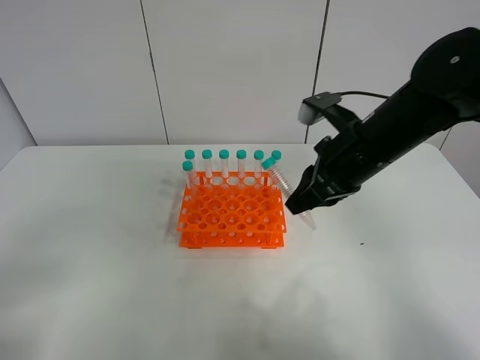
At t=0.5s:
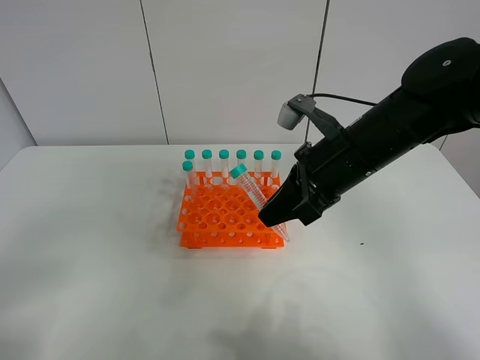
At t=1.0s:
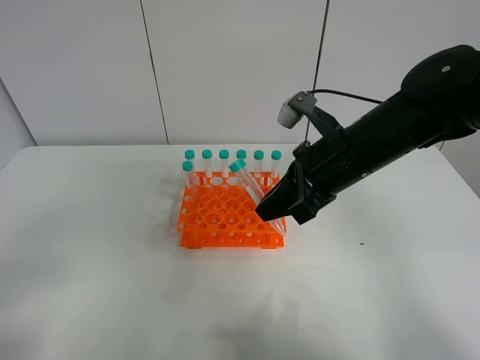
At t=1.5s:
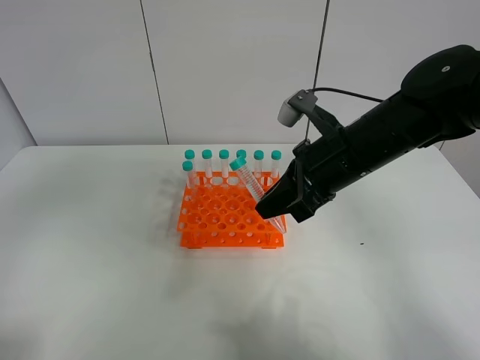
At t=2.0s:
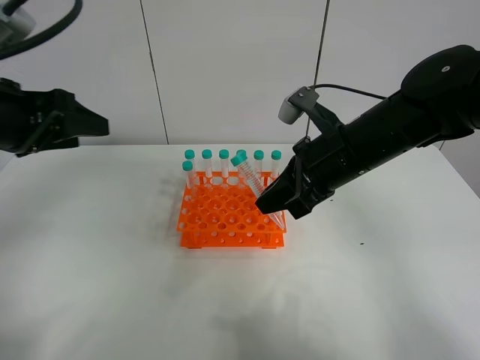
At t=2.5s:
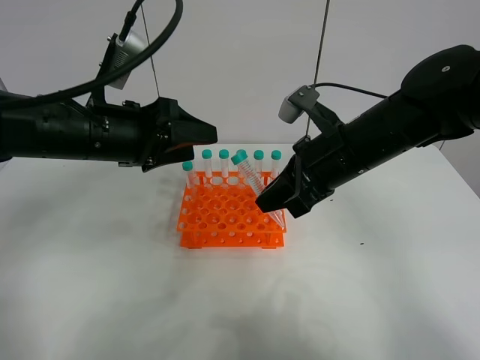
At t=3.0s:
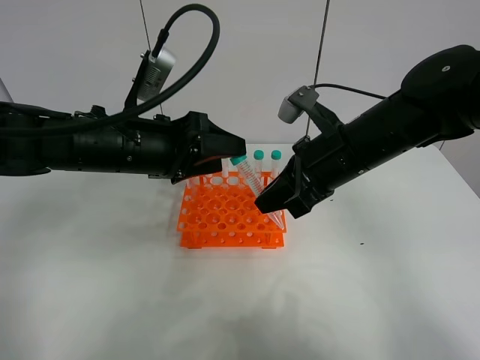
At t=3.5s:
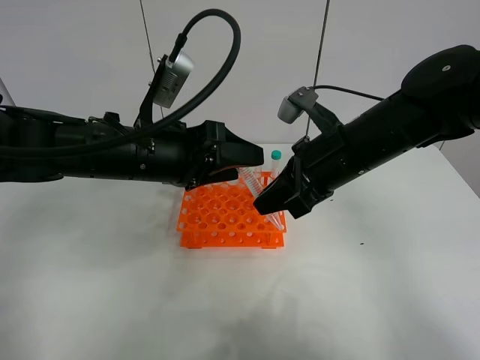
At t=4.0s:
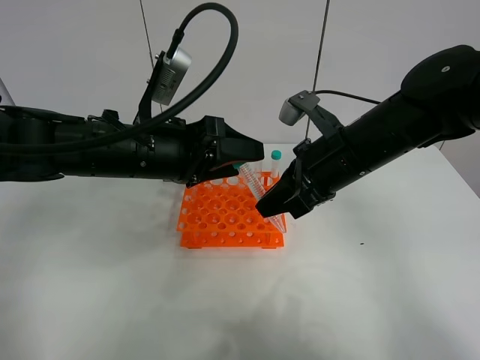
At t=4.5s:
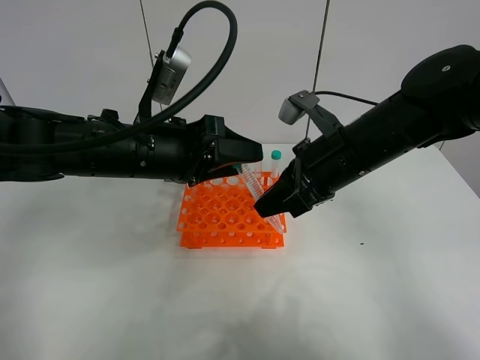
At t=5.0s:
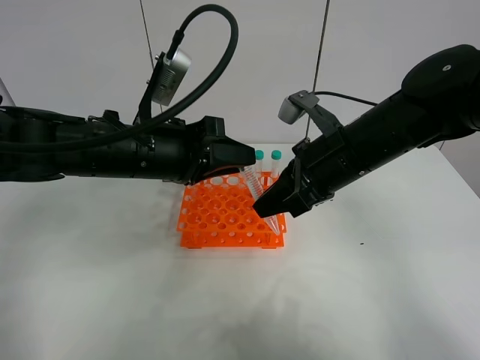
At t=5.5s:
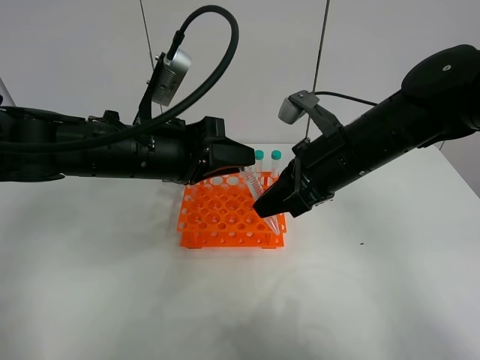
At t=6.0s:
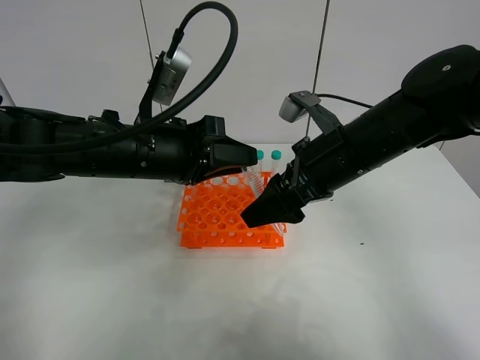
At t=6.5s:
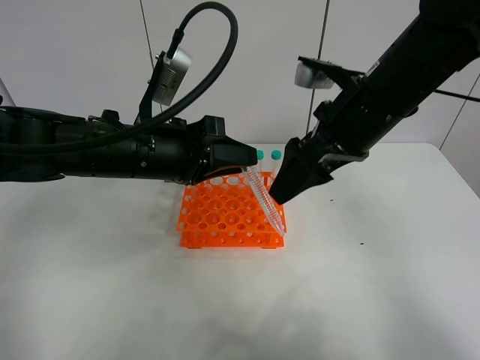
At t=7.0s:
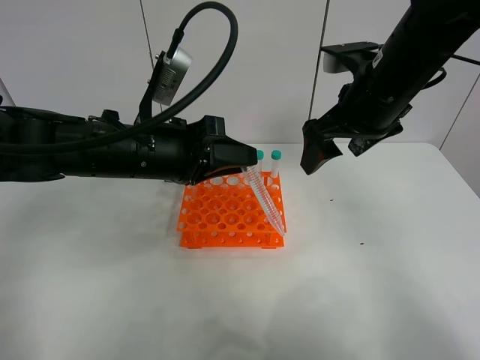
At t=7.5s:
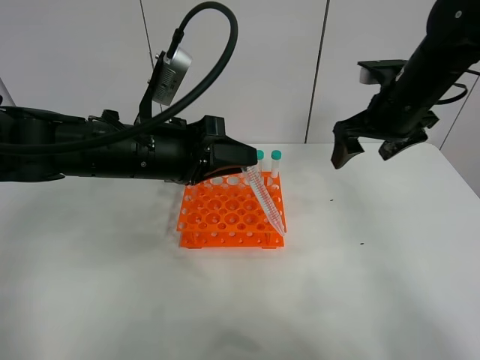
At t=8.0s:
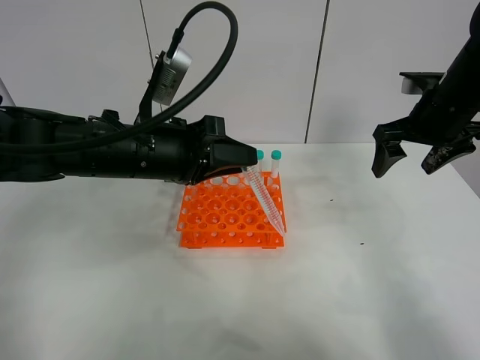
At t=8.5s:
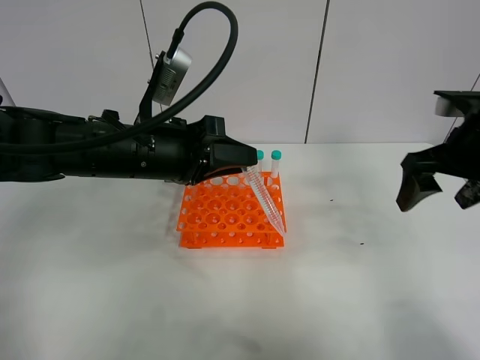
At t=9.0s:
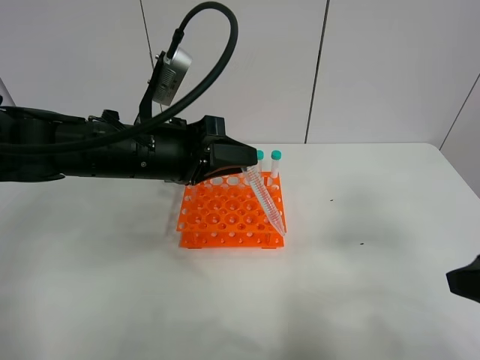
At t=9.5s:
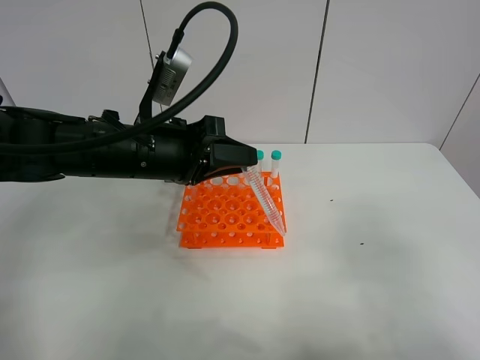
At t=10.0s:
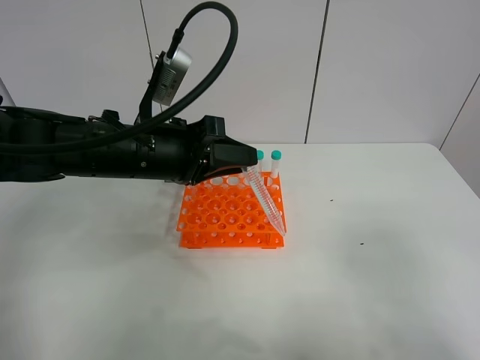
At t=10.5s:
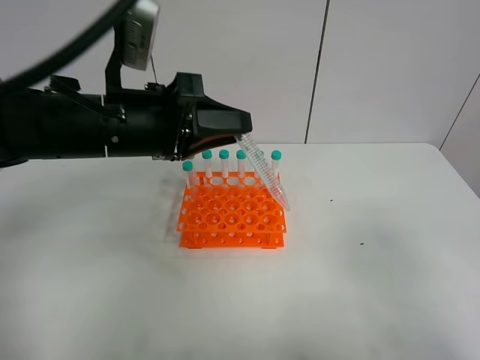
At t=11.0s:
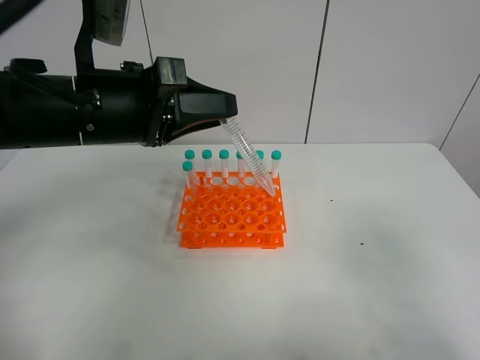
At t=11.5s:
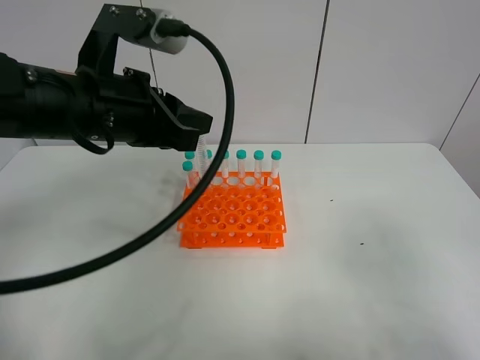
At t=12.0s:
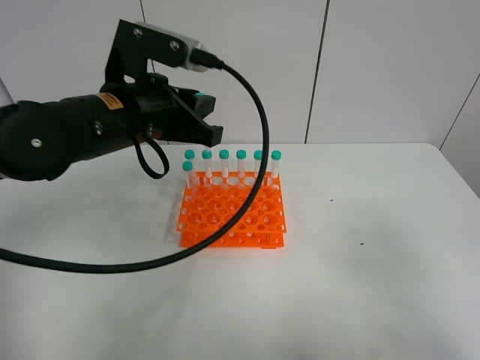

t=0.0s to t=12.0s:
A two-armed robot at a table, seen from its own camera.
Task of the whole recording: Put the test tube on the table back onto the test tube rack.
Step, t=0.0s to t=6.0s: Move the test tube from the right gripper to the left gripper.
t=0.0s to t=2.0s: The left gripper is displaced forward by some 25 cm.
t=2.0s to t=4.0s: The left gripper heads to the right and downward, covering about 15 cm.
t=4.0s to t=6.0s: The right gripper opens its fingers. Meanwhile the left gripper closes.
t=6.0s to t=8.0s: The right gripper shifts approximately 15 cm to the right and forward.
t=8.0s to t=10.0s: The right gripper moves backward, some 35 cm.

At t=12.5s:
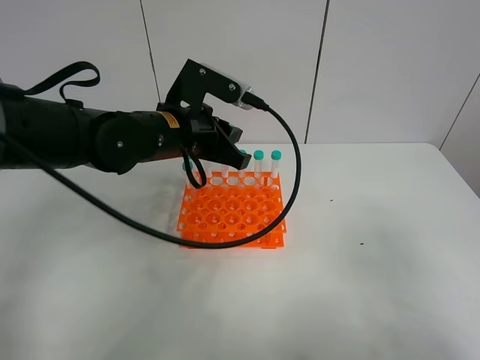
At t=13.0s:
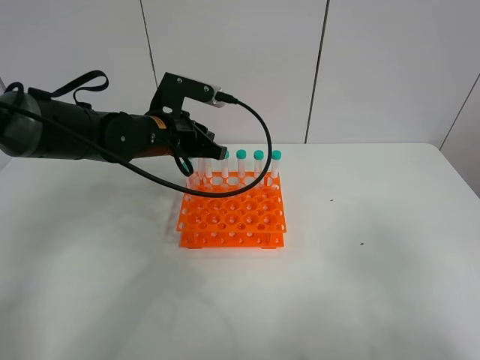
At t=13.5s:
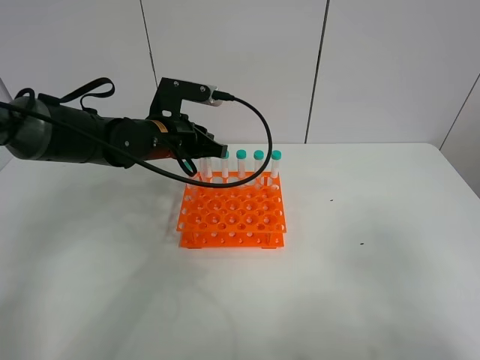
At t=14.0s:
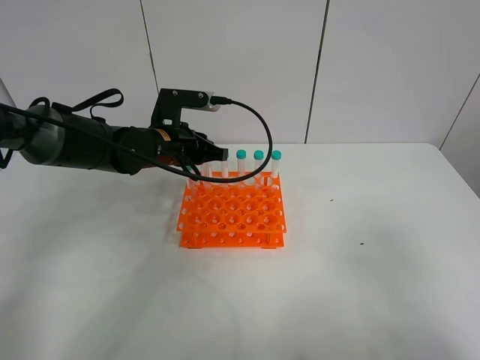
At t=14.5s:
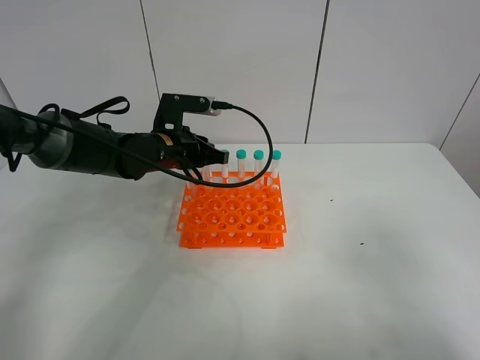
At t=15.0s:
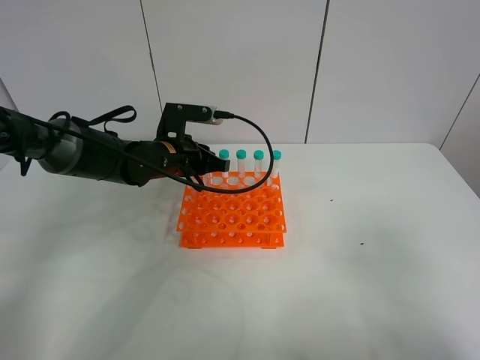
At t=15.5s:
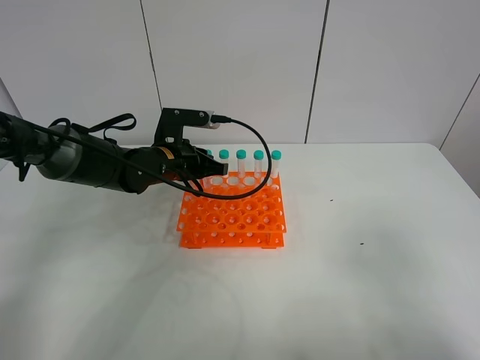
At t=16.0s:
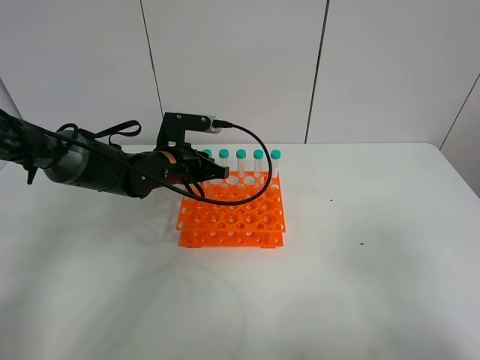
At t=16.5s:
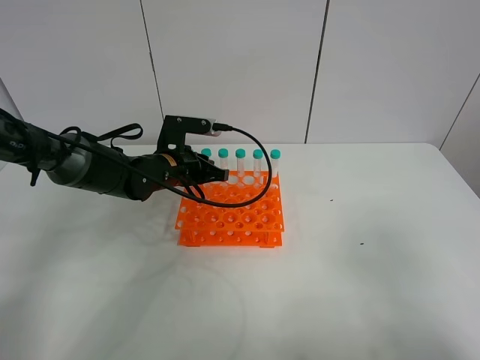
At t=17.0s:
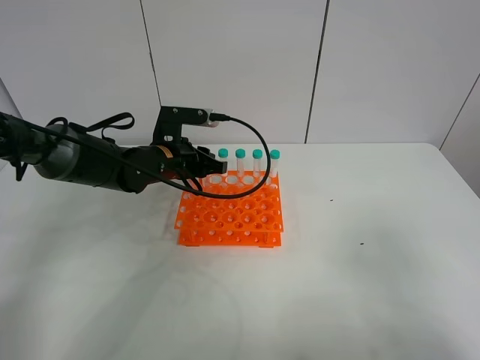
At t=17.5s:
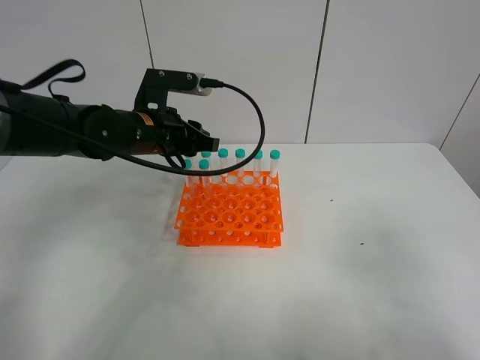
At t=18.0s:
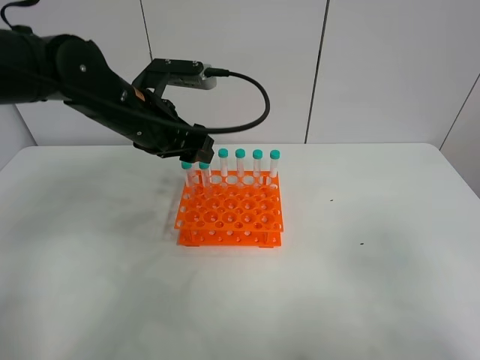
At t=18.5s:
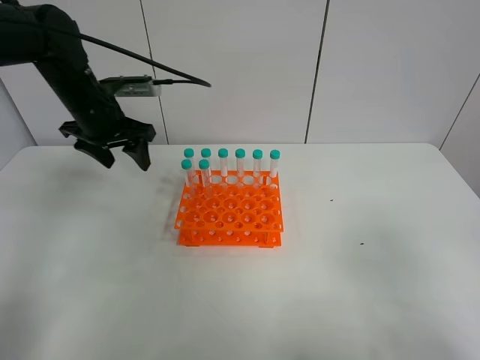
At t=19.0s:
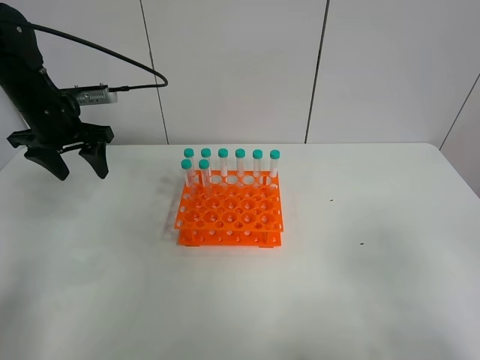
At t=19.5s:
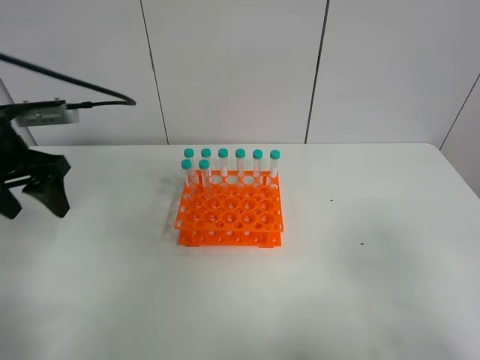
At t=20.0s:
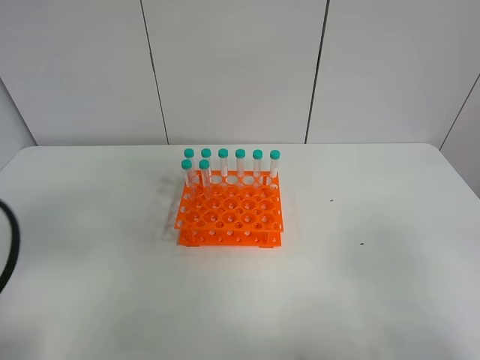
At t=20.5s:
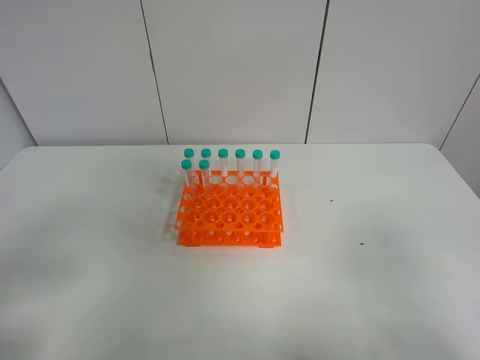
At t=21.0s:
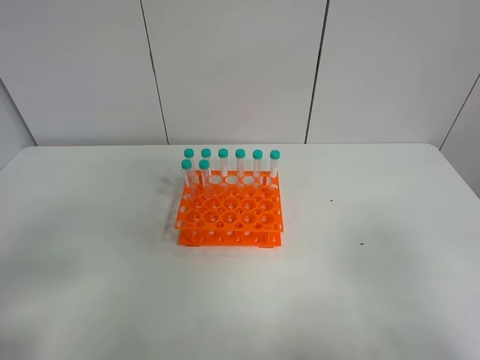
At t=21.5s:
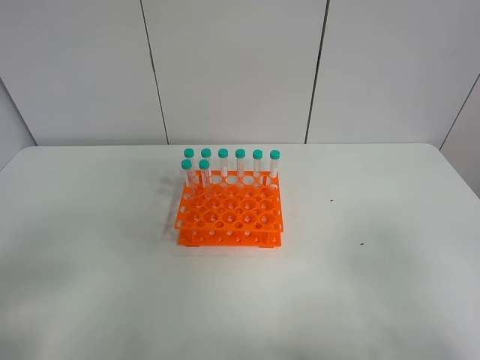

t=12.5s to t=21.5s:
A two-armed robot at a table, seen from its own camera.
Task of the whole recording: Put the test tube on the table back onto the test tube rack.
Step, t=12.5s to t=17.0s: Place the test tube on the test tube rack with the left gripper.
t=12.5s to t=14.5s: The left gripper heads downward and forward, covering roughly 10 cm.
t=14.5s to t=17.0s: The grippers move only a little.
t=17.0s to t=19.5s: The left gripper shifts approximately 25 cm to the left, upward and backward, and opens.
t=19.5s to t=21.5s: The left gripper is displaced backward by about 25 cm.
